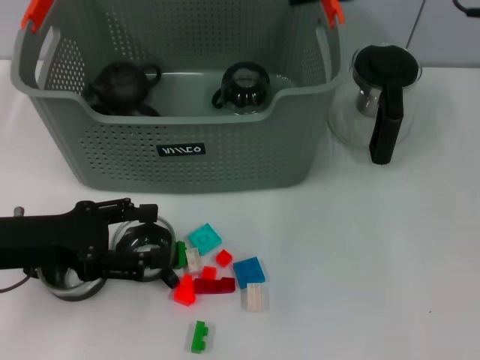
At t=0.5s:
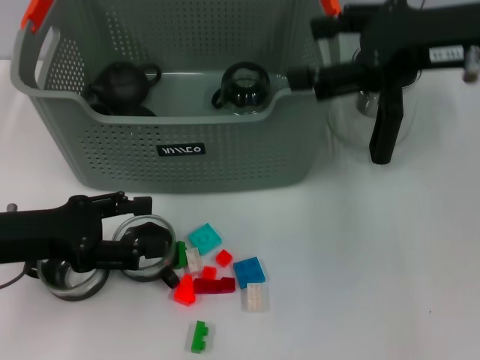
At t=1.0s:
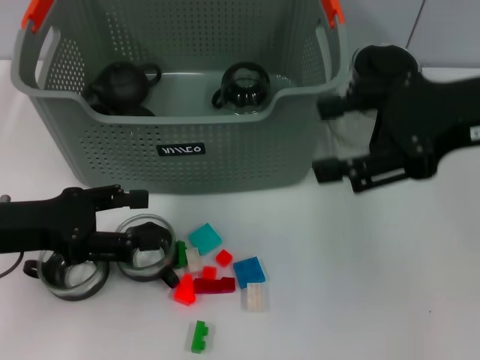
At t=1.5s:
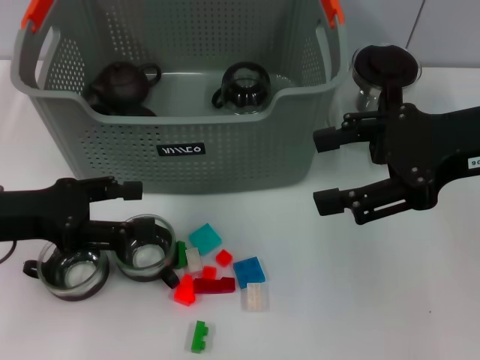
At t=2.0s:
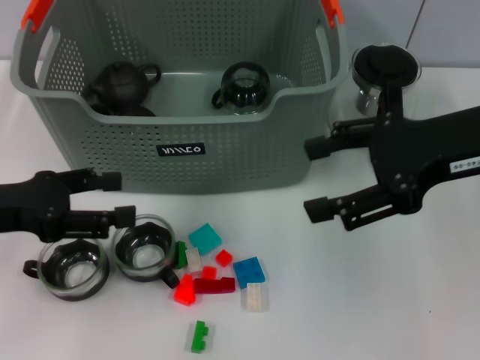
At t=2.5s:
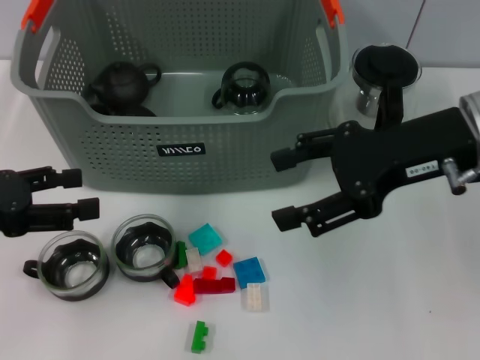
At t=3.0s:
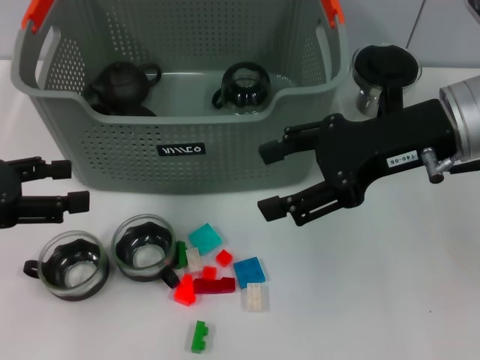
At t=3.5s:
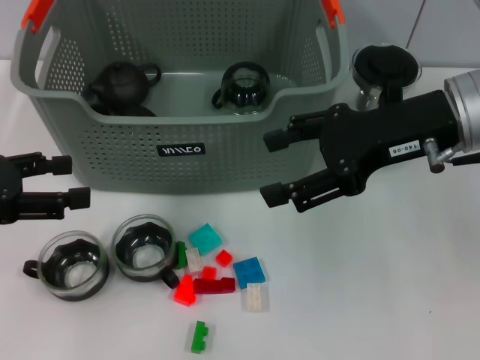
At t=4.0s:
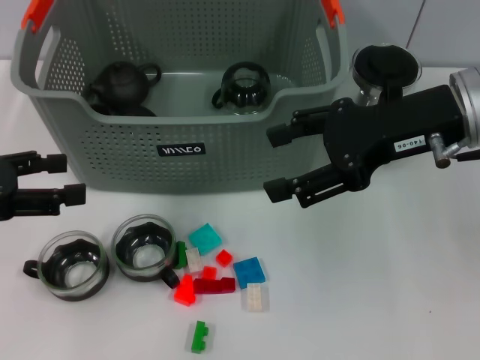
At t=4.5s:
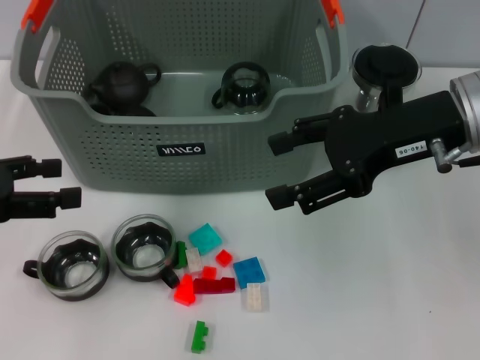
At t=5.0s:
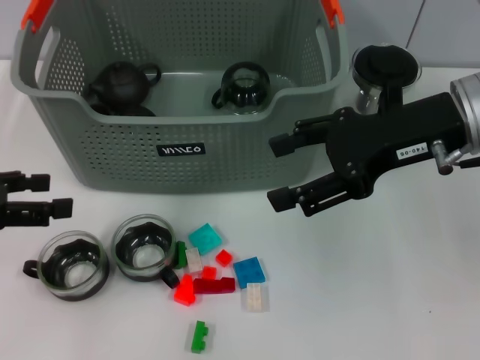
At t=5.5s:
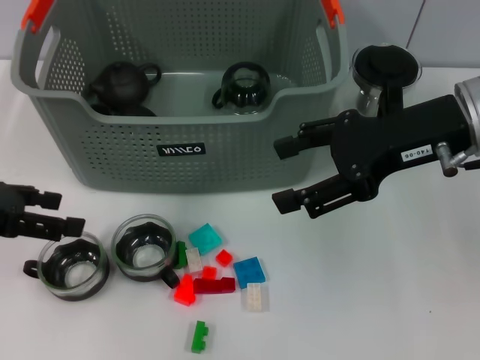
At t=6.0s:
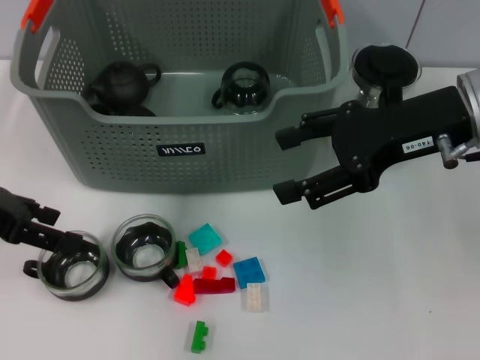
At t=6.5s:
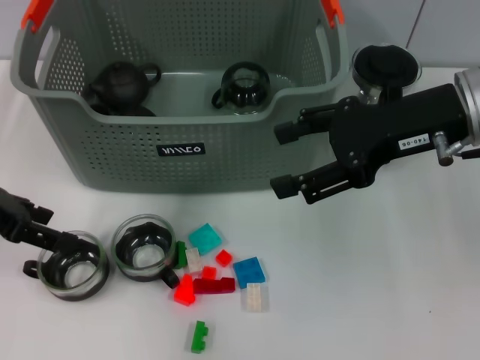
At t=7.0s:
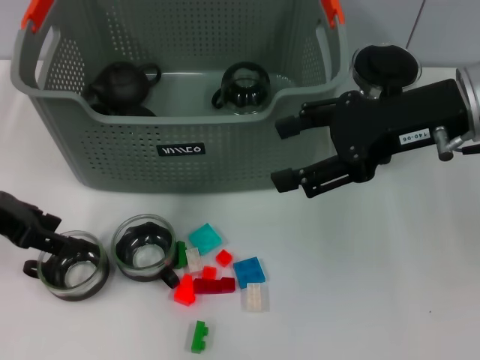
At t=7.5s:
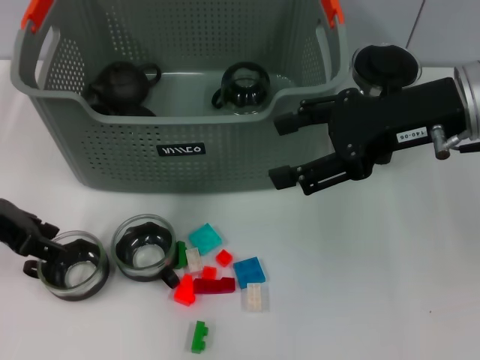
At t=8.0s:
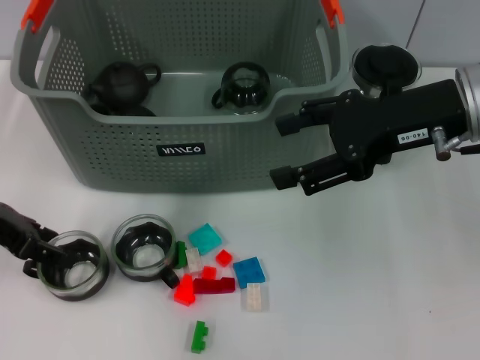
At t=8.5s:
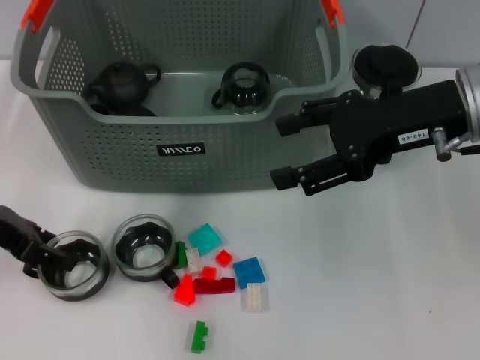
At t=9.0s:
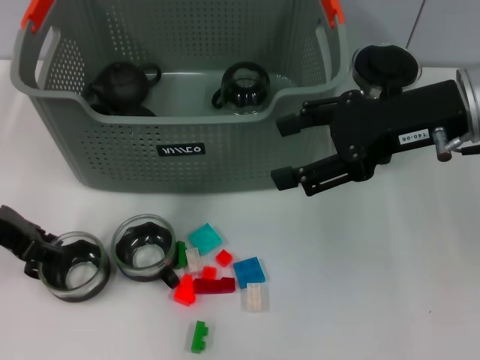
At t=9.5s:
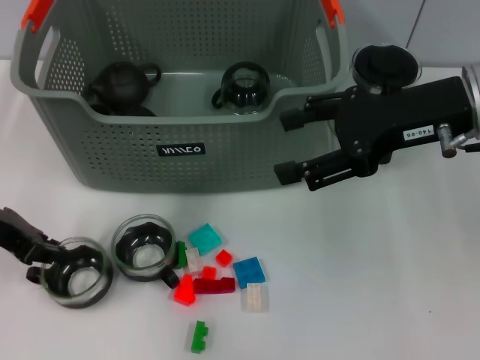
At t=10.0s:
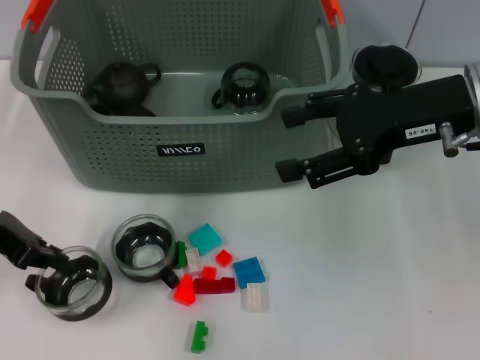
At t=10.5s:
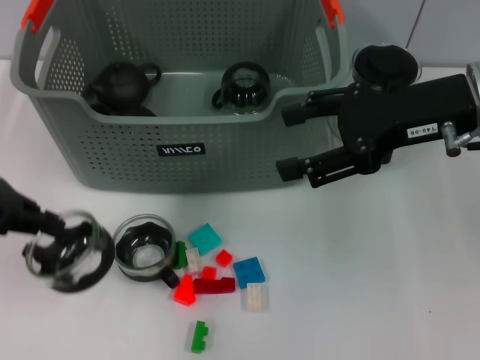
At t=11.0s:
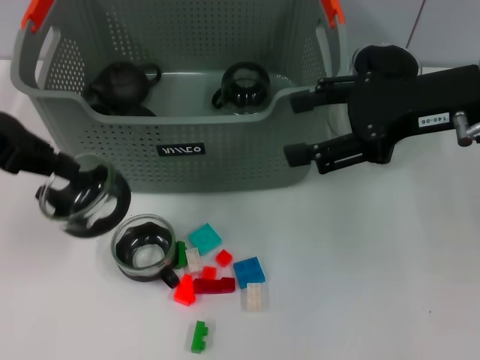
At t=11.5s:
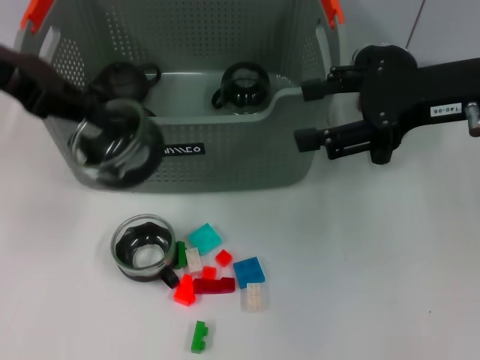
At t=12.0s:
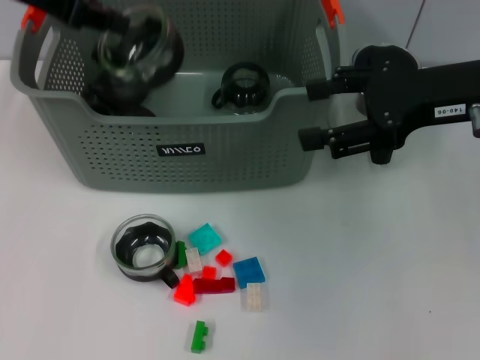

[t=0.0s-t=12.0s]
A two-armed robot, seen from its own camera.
Task of the whole recording: pick up the teacup on the table and place it into the storage bin, pick up the block on the table and place it into the storage bin.
Step, t=0.0s to t=10.0s: Grasp the cup with left gripper.
t=0.0s to t=2.0s: The right gripper is displaced backward and downward by approximately 10 cm.
t=2.0s to t=4.0s: The grippers move only a little.
t=6.0s to t=8.0s: The grippers move only a little.
t=8.0s to t=10.0s: The left gripper closes.
t=10.0s to t=12.0s: The left gripper is displaced upward and forward by approximately 20 cm.

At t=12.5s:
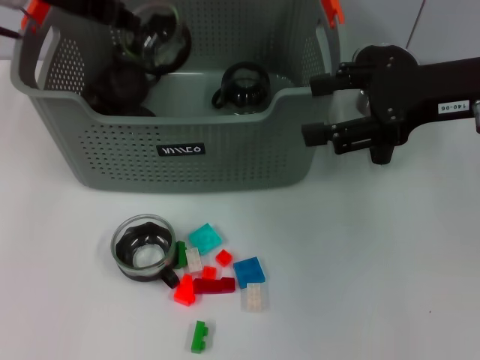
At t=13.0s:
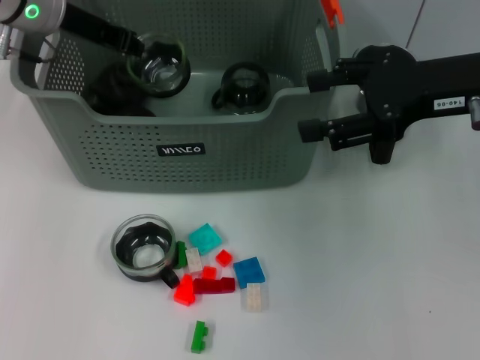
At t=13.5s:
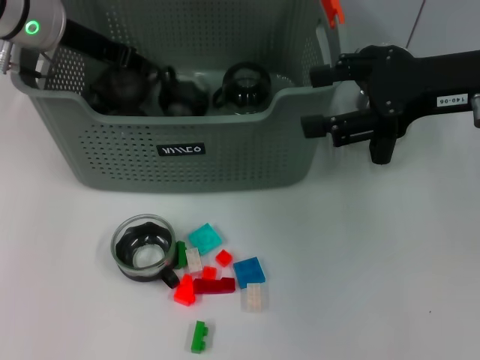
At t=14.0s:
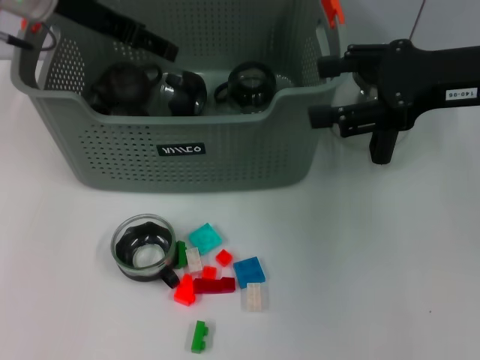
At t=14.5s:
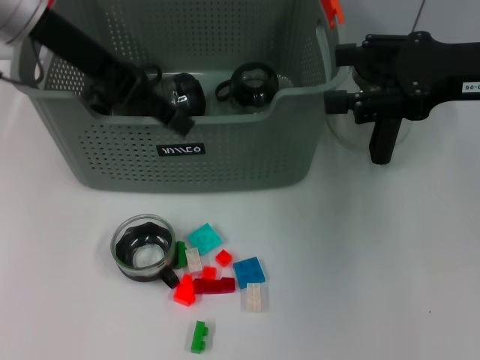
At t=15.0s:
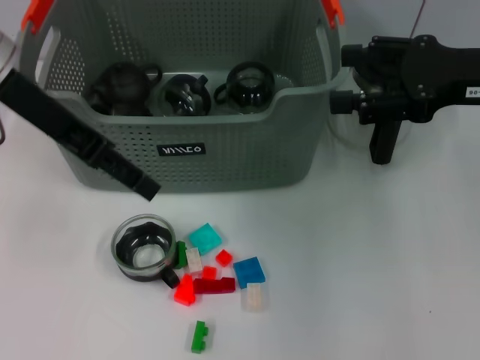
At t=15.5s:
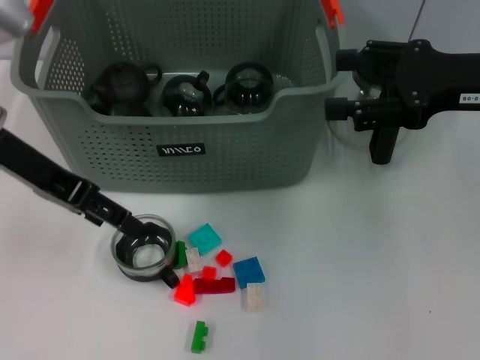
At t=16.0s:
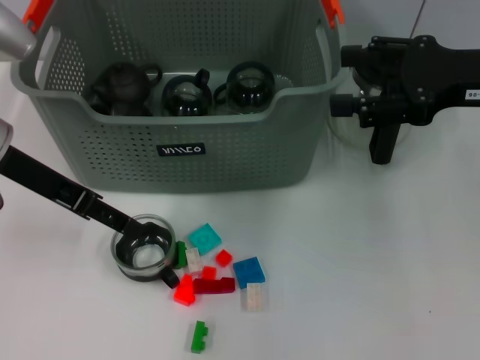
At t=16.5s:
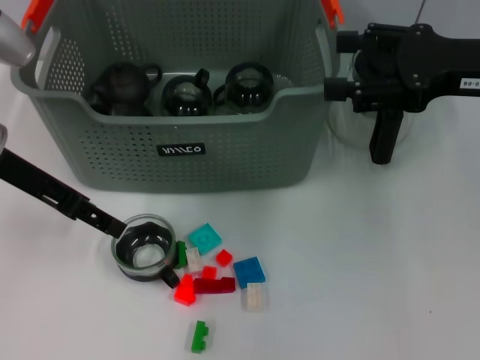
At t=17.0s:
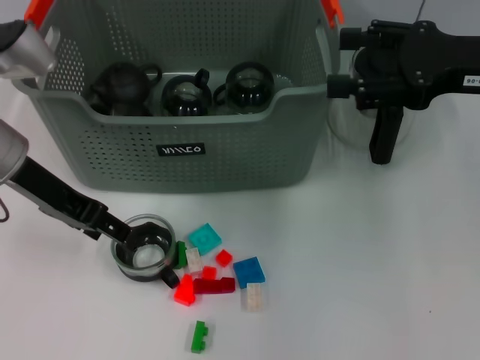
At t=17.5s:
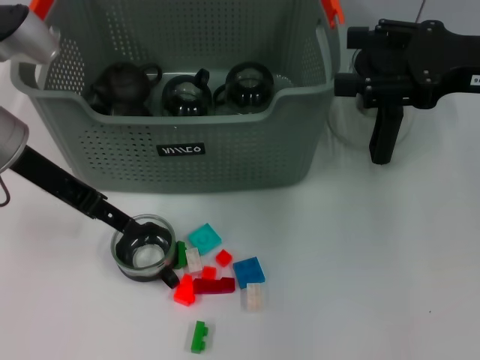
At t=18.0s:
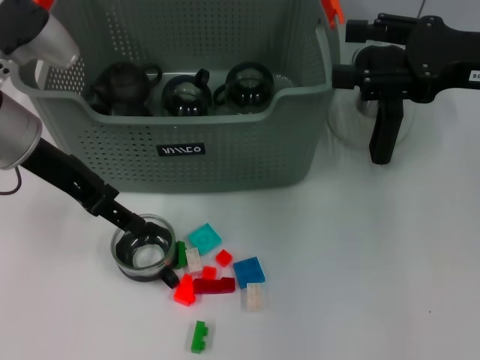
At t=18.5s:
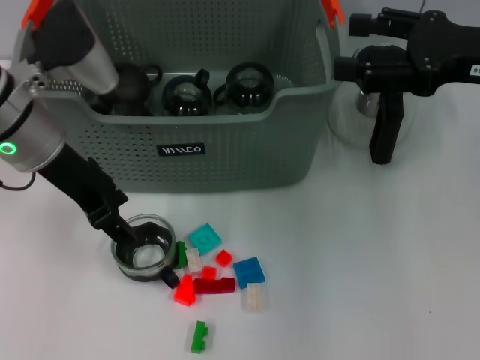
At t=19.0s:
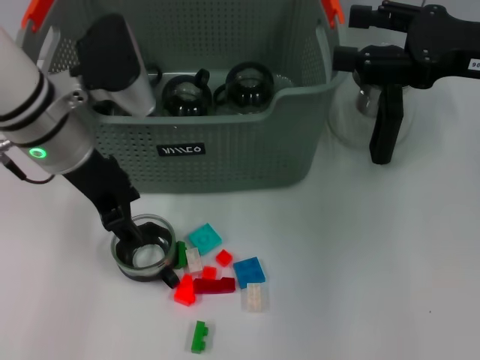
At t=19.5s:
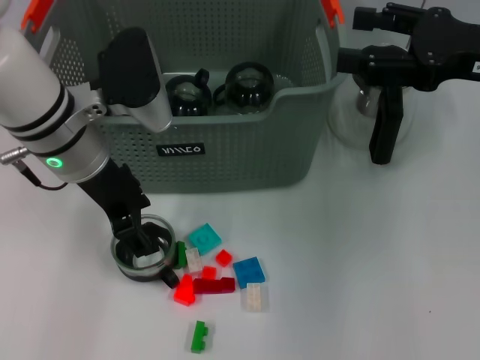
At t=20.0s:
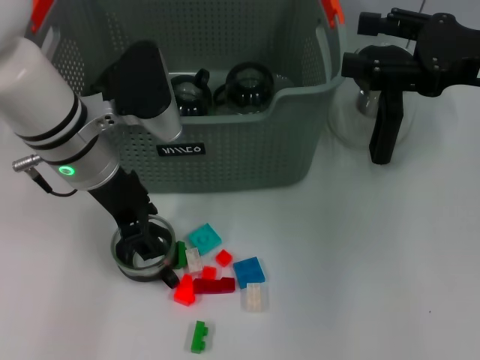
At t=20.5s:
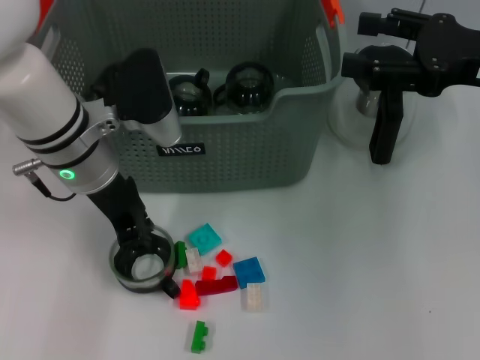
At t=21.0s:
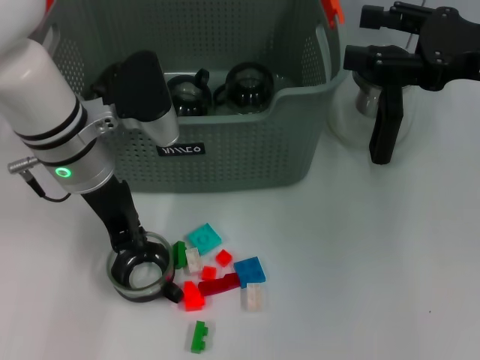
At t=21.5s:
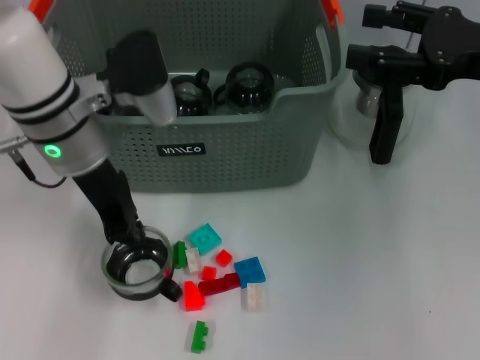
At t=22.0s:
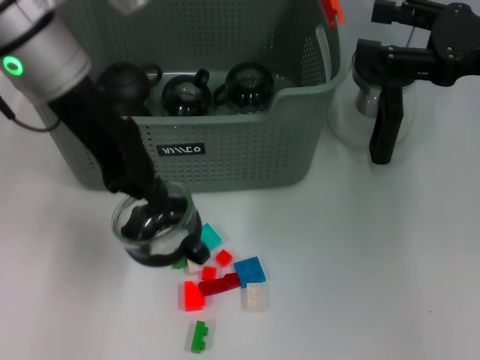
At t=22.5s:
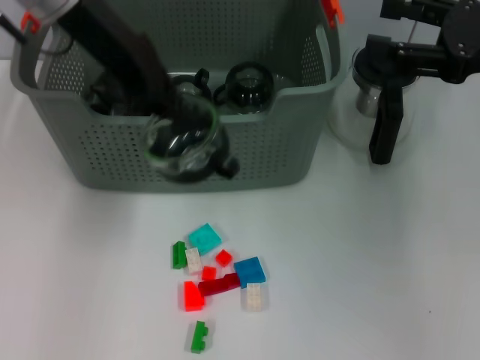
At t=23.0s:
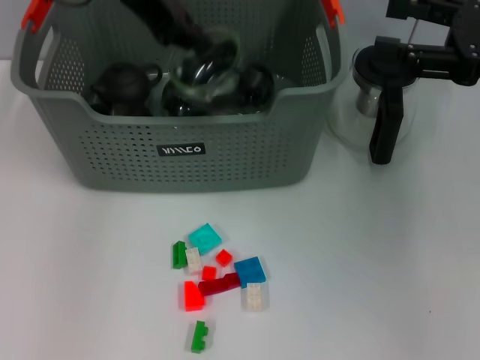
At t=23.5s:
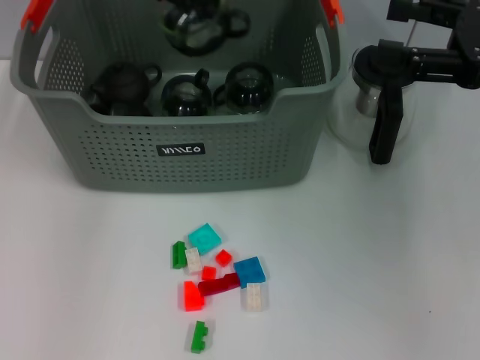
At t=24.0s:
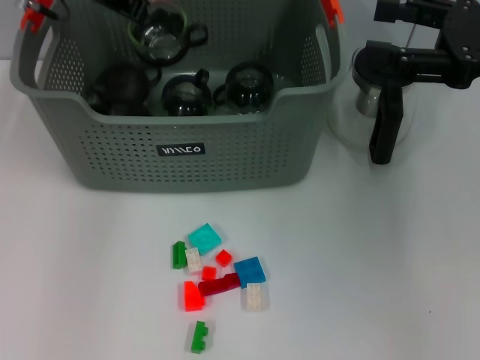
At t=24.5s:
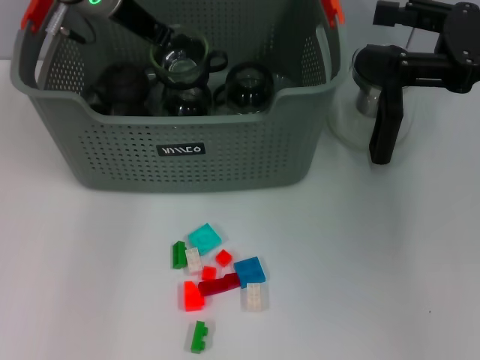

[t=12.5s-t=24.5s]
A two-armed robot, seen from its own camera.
Task of the whole recording: pick up the teacup on the table and place it into the storage bin, pick up the block on the table and place it into the storage bin.
Step, t=12.5s to t=14.5s: Place the cup in the storage box with left gripper.
Step, t=15.0s to t=21.0s: Grasp the cup with left gripper.
t=12.5s to t=14.5s: The left gripper heads backward, covering approximately 5 cm, and opens.
t=14.5s to t=16.5s: The left gripper shifts about 10 cm downward and to the left.
t=16.5s to t=18.5s: The left gripper moves to the right, approximately 5 cm.
t=18.5s to t=20.5s: The left gripper moves some 5 cm, and closes.
t=20.5s to t=22.5s: The left gripper shifts about 15 cm upward, and closes.
t=22.5s to t=24.5s: The left gripper is displaced forward and downward by roughly 10 cm.

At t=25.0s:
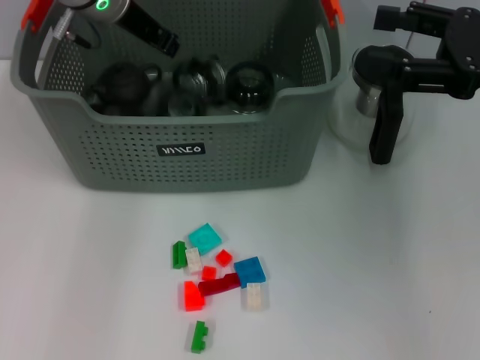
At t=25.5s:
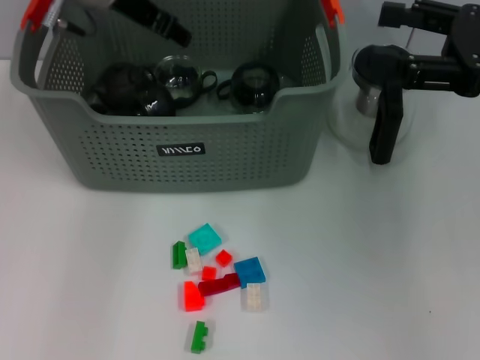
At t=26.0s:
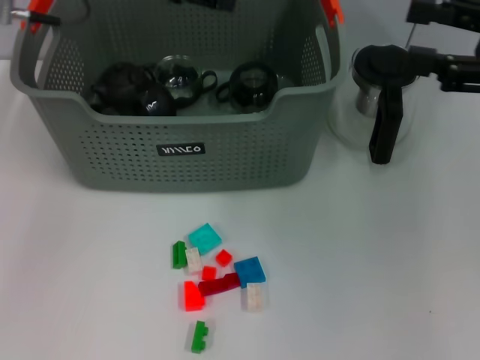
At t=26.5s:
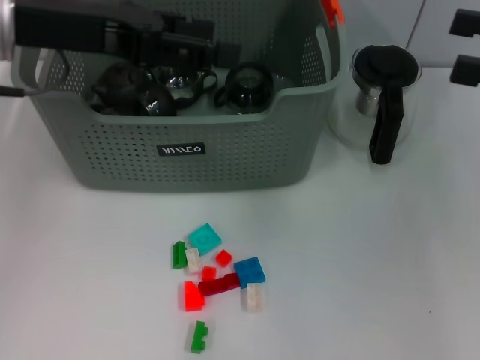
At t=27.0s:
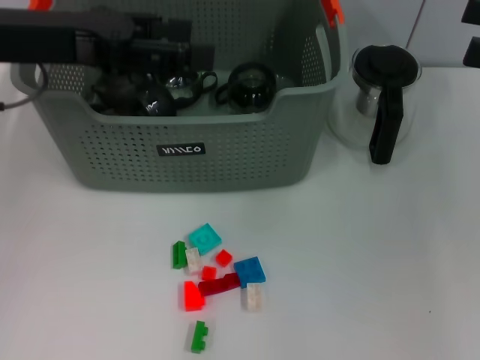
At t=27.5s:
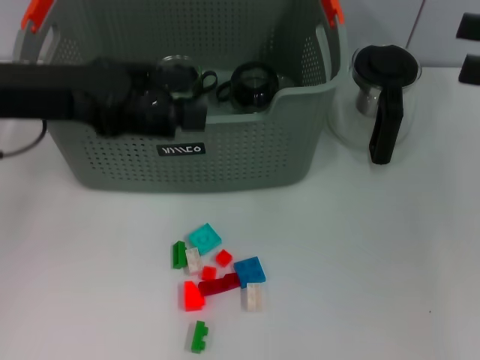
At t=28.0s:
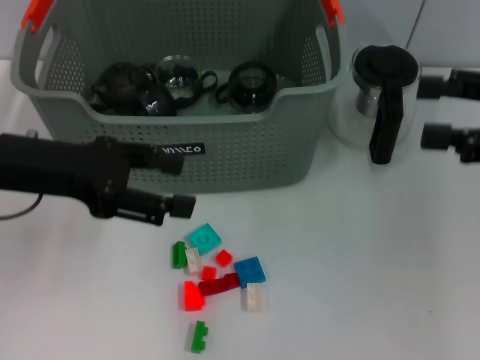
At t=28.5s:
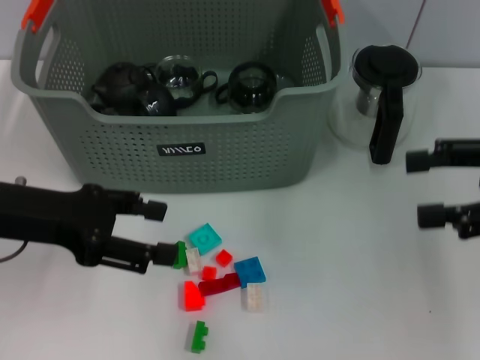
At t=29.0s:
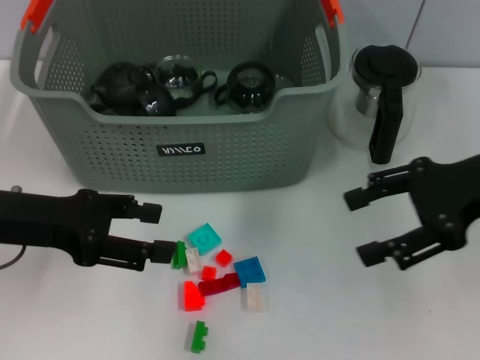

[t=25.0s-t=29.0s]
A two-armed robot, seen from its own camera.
Task of the whole recording: pick up the teacup on the table and place it into the storage bin, pick up the block on the table and place it into the storage bin.
t=25.0s to t=27.0s: The left gripper shifts roughly 15 cm backward and to the left, and opens. The right gripper shifts some 5 cm to the right.
t=27.0s to t=29.0s: The right gripper is displaced to the left by about 10 cm, while the left gripper heads downward and backward, covering approximately 10 cm.
